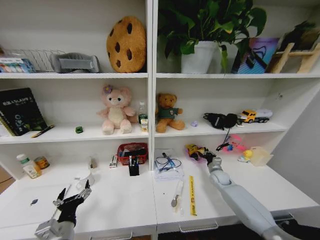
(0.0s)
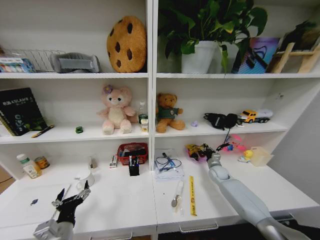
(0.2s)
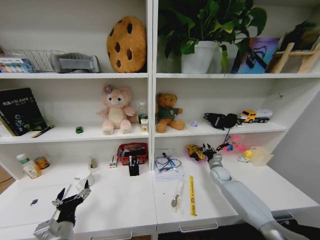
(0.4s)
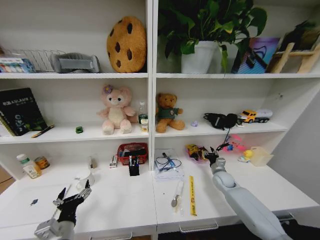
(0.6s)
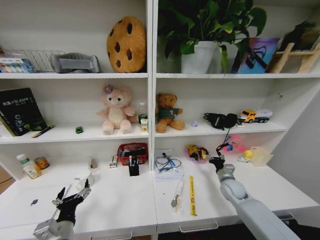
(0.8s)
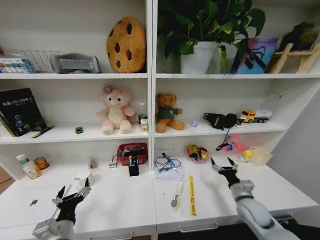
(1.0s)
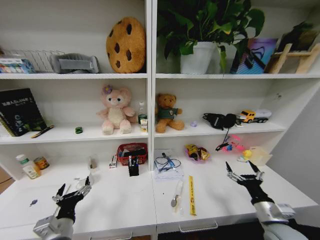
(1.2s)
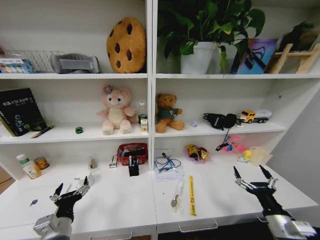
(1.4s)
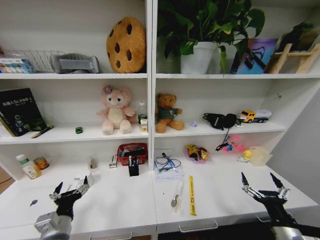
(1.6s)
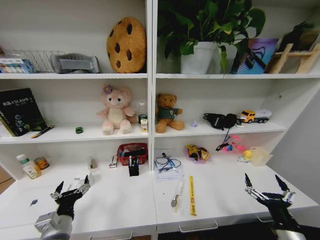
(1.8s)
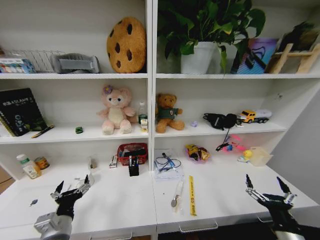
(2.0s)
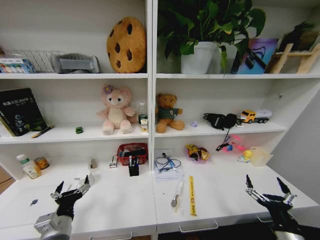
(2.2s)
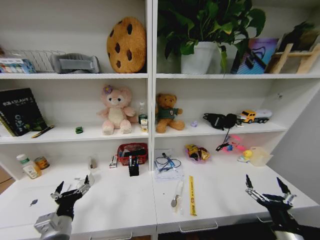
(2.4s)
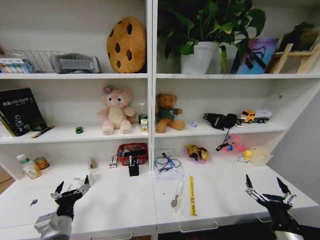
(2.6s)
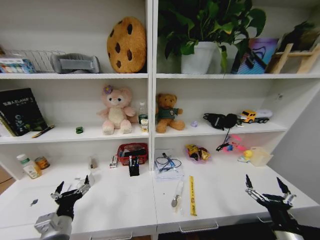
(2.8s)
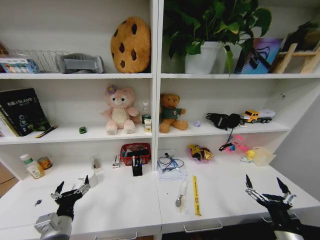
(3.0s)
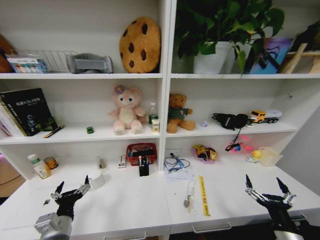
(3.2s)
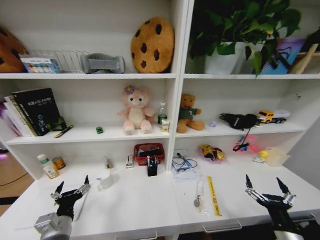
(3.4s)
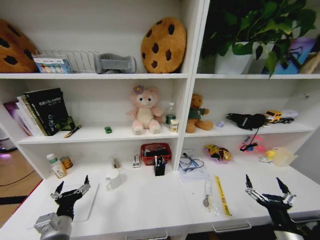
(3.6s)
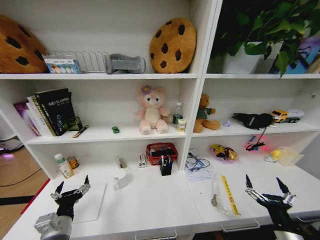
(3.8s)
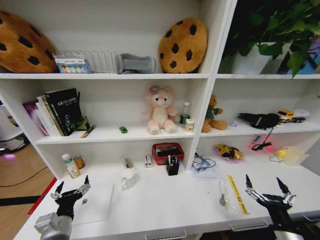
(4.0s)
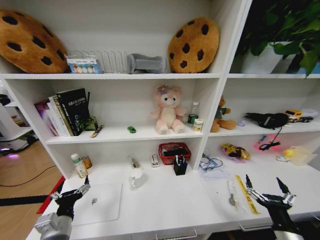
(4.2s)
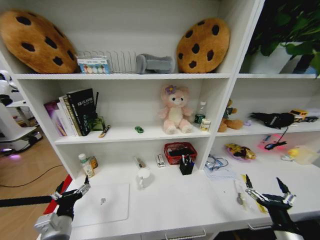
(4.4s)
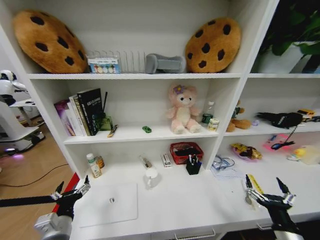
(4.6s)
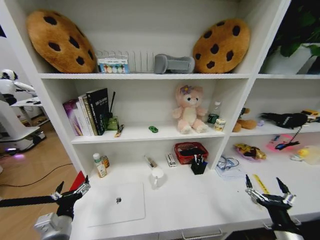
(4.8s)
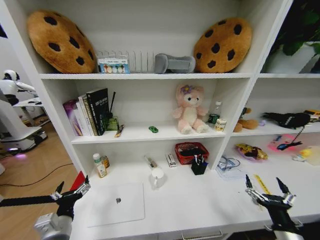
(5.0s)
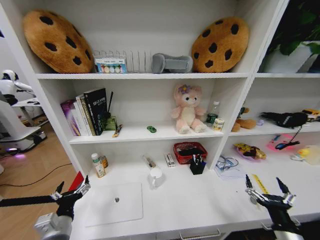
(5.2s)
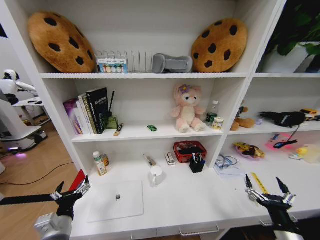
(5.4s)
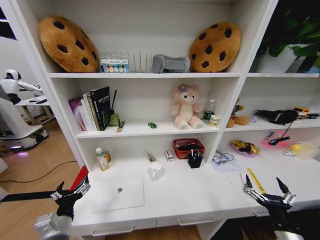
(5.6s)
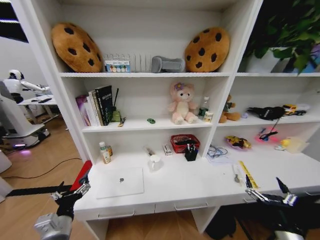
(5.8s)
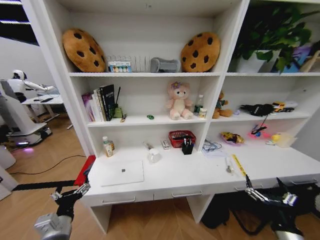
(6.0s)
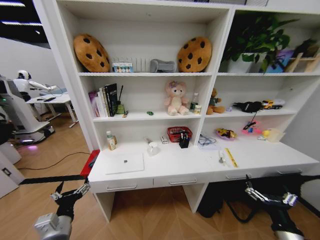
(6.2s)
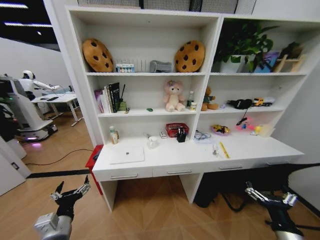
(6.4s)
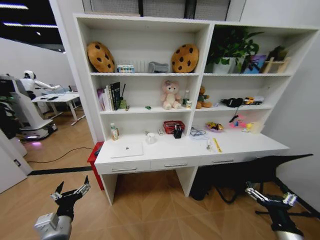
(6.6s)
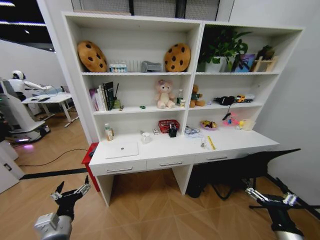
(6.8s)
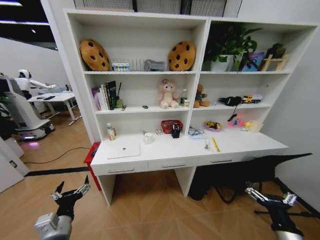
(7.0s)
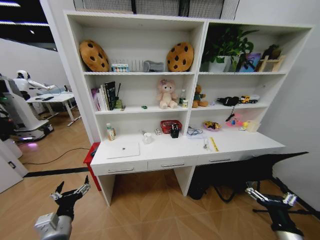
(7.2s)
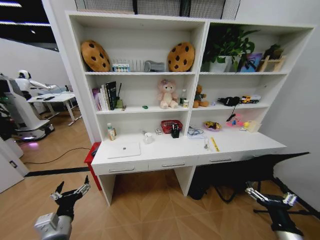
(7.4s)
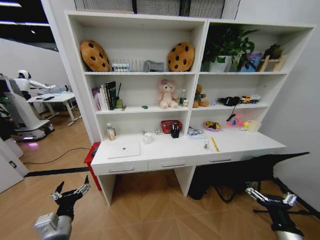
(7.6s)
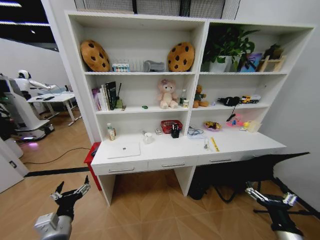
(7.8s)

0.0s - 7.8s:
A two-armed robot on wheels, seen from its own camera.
Task of the whole recording: Organize the objects on the table.
0.0s - 1.6s: The right gripper goes some 35 cm backward, and opens.

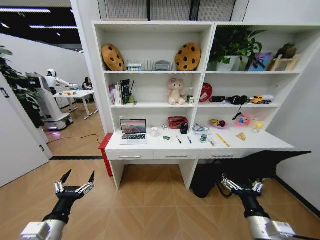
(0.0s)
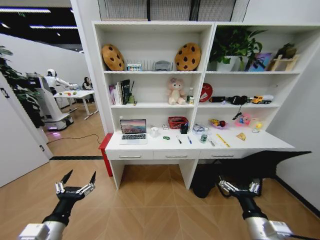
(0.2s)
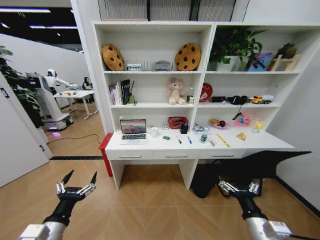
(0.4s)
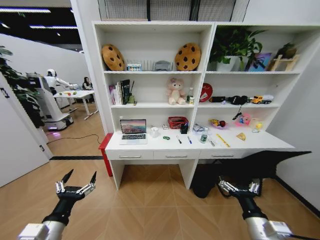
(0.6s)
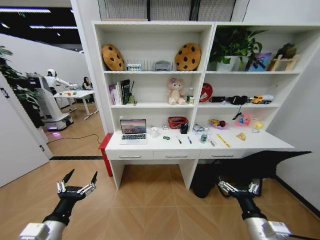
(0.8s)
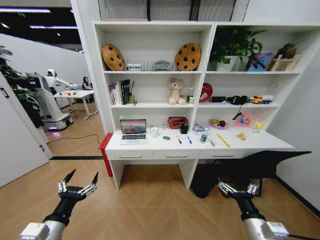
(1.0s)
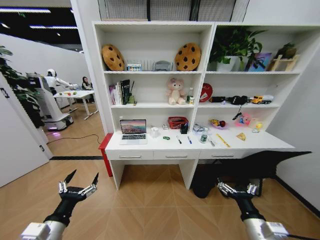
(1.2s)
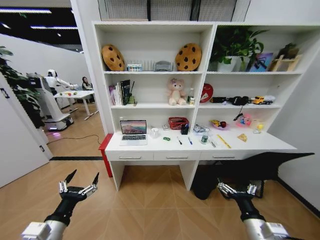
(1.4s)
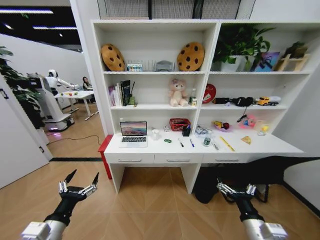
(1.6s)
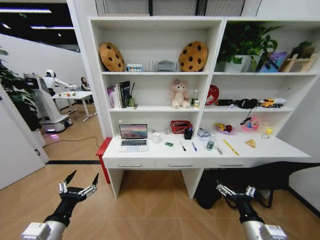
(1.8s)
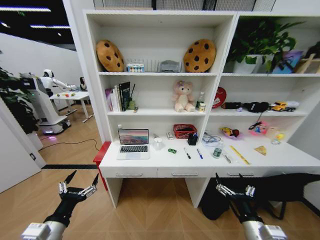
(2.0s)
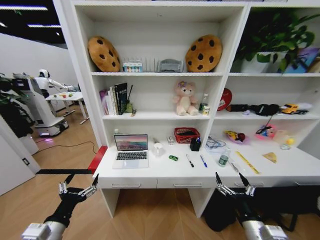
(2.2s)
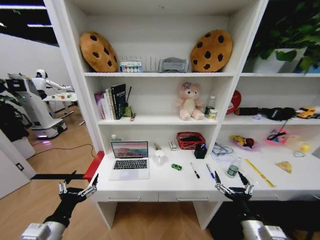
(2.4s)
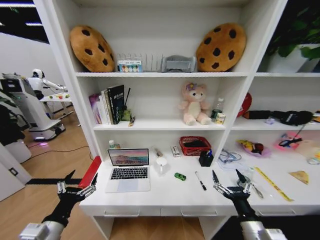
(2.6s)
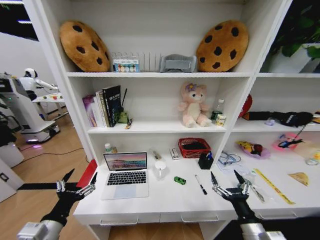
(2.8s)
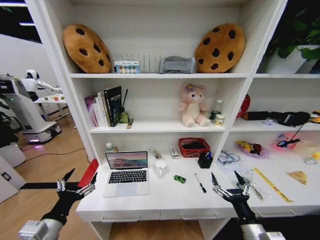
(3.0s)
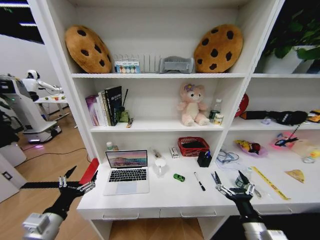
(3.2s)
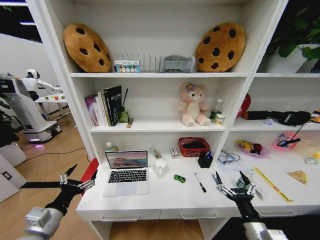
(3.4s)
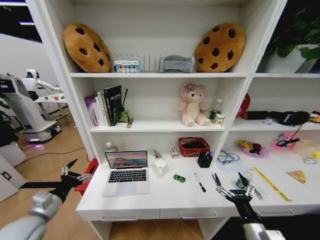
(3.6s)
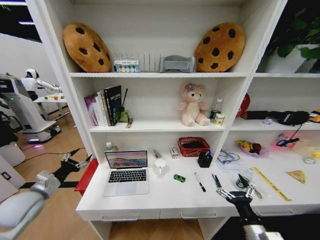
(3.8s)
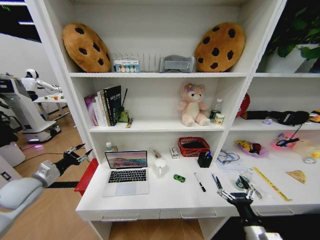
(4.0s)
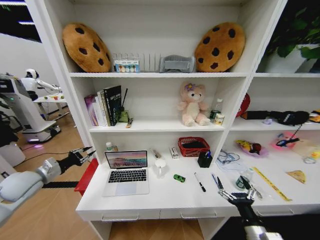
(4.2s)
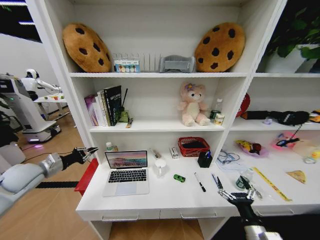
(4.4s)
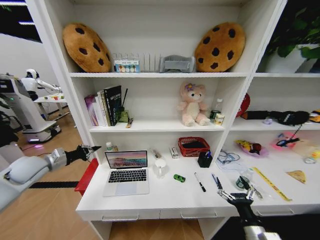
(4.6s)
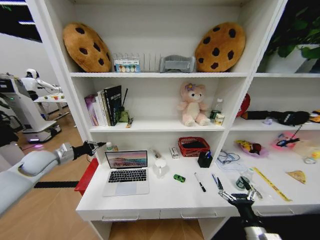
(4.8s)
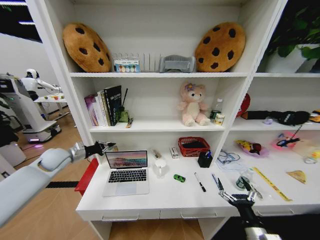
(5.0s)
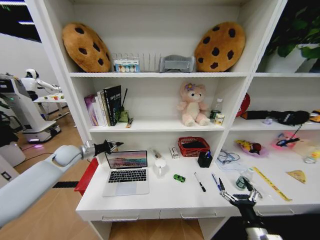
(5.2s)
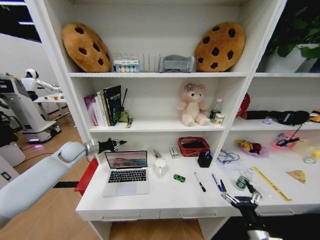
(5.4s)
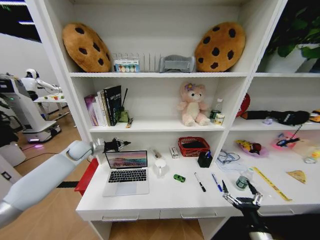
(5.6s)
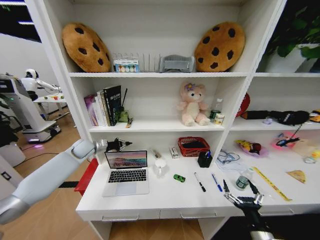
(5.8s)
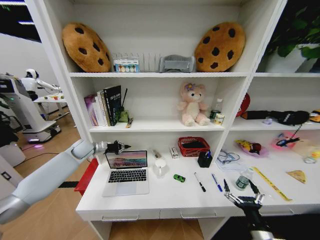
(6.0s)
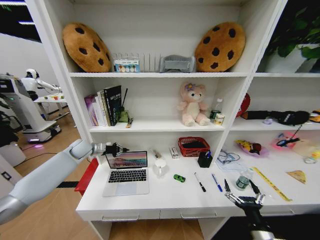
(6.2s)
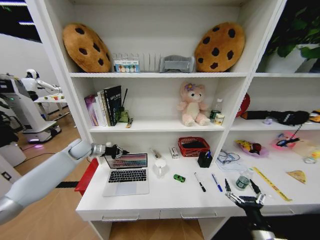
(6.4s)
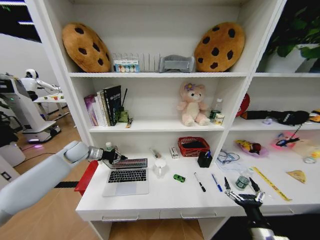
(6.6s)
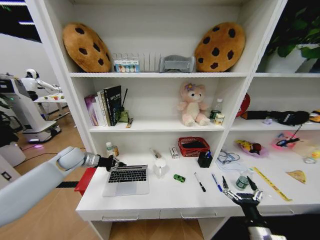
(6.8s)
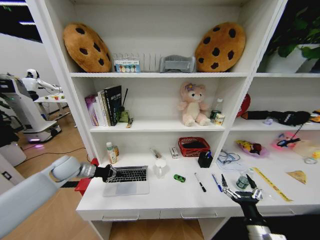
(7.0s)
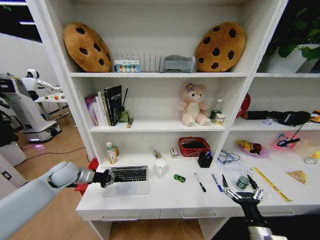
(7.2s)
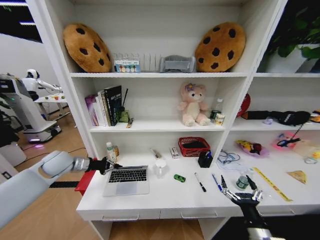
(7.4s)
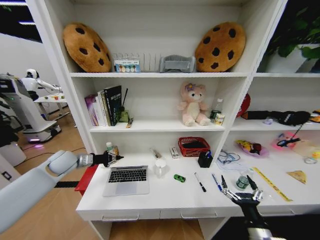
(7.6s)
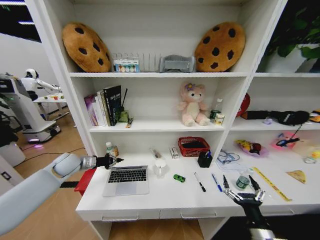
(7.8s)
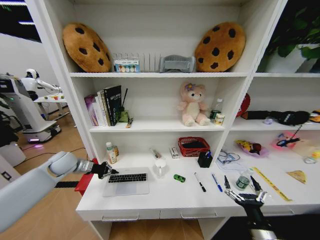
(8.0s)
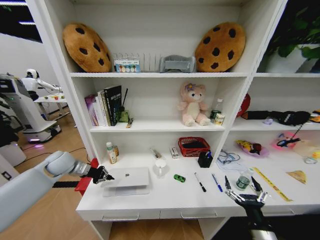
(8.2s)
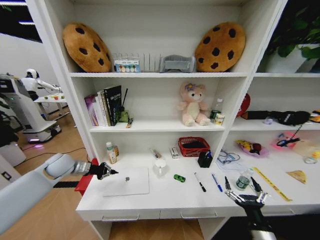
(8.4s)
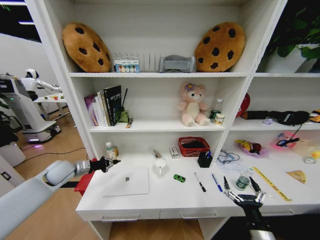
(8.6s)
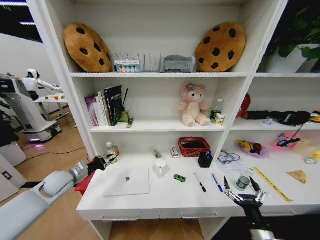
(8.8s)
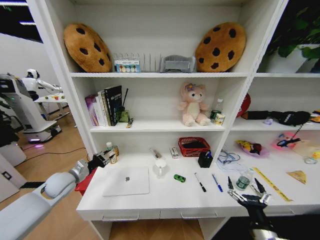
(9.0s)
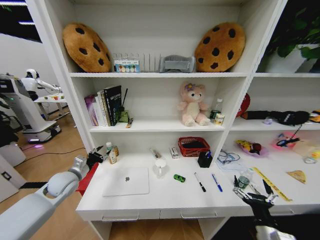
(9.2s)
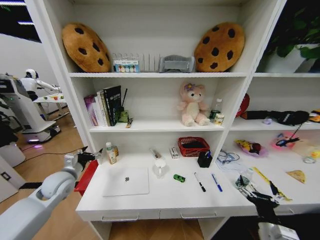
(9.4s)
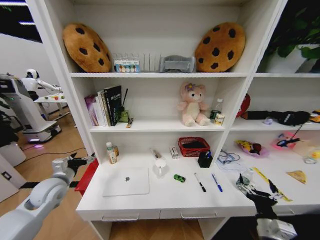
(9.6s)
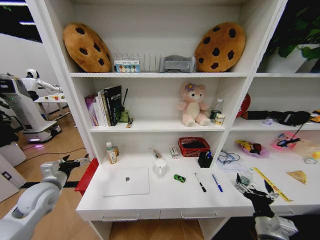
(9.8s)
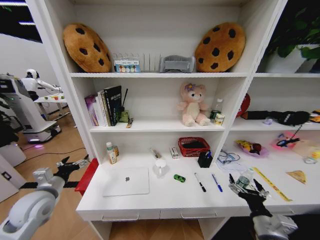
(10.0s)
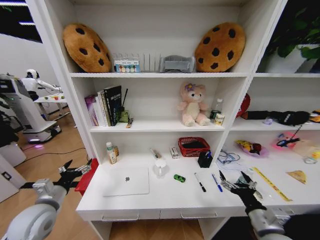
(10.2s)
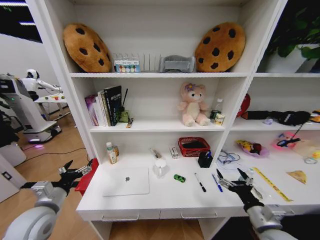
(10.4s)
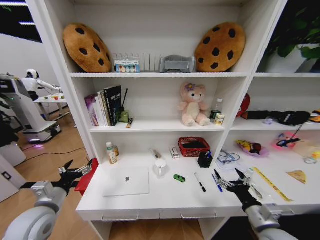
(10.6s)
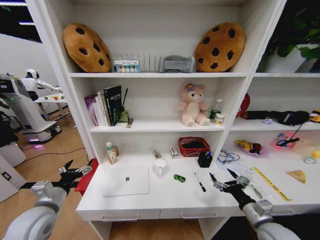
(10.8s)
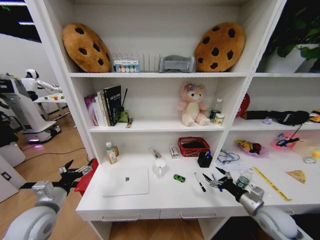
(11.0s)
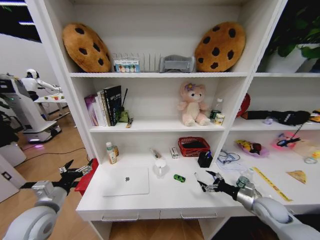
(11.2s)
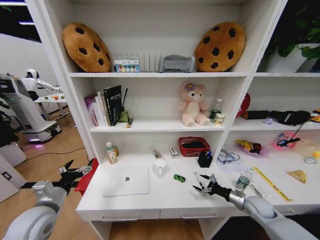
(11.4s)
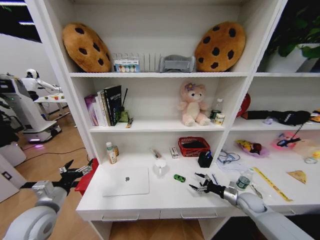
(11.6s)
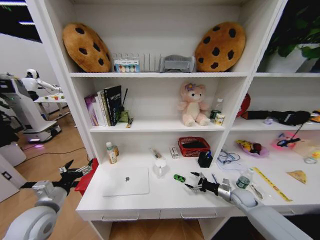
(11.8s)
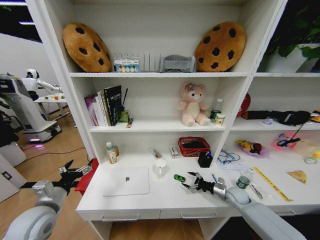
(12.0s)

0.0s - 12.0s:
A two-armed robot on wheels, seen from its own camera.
Task of the whole recording: Organize the objects on the table.
3.0s - 4.4s: The left gripper shifts about 25 cm forward and to the left, and closes.
4.4s - 6.0s: The left gripper is displaced forward and to the right by roughly 20 cm.
6.0s - 7.6s: The left gripper is displaced backward by roughly 10 cm.
7.6s - 9.0s: The left gripper shifts approximately 10 cm backward and downward, and opens its fingers.
9.0s - 10.4s: The left gripper is displaced backward by about 15 cm, and opens, while the right gripper moves upward, roughly 5 cm.
10.4s - 12.0s: The right gripper travels forward and downward by approximately 25 cm.

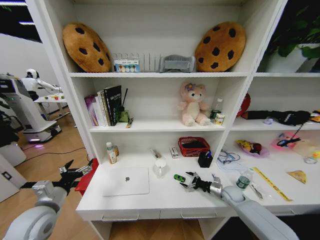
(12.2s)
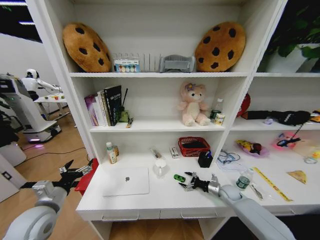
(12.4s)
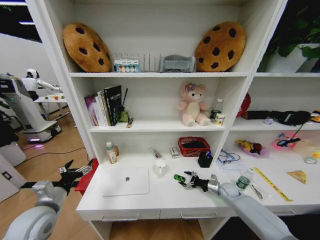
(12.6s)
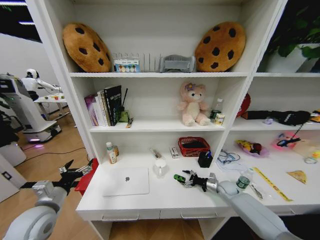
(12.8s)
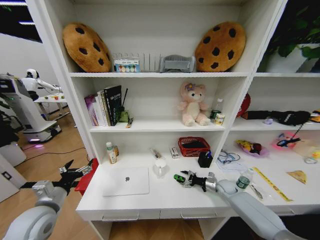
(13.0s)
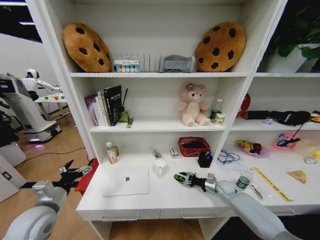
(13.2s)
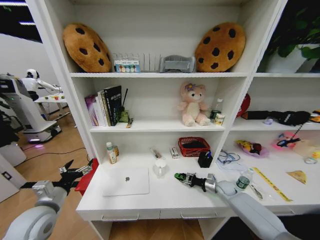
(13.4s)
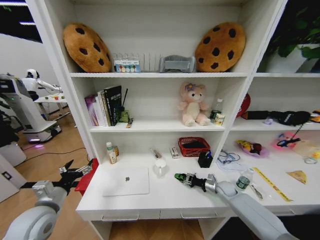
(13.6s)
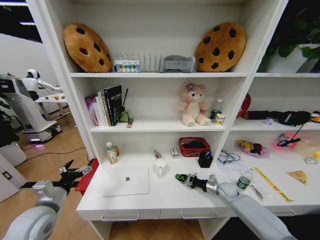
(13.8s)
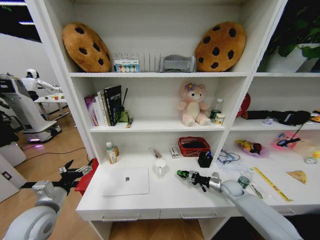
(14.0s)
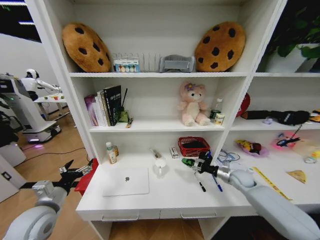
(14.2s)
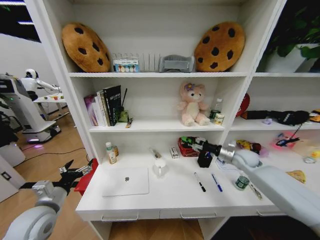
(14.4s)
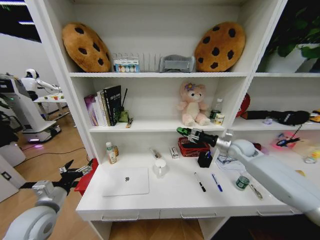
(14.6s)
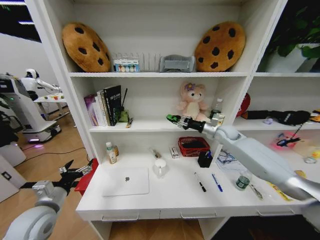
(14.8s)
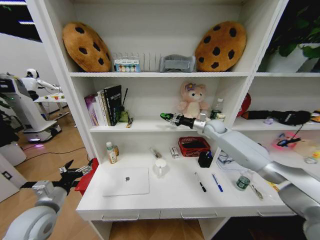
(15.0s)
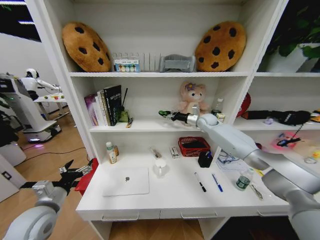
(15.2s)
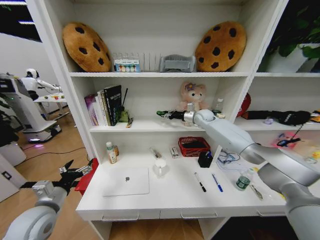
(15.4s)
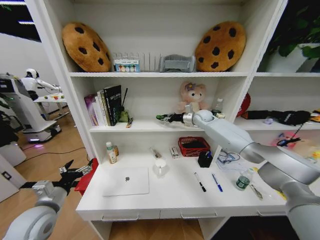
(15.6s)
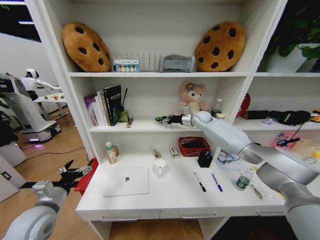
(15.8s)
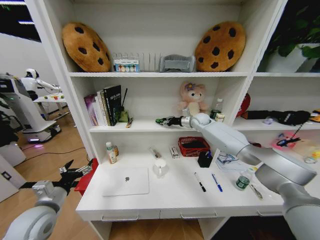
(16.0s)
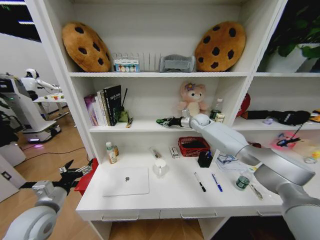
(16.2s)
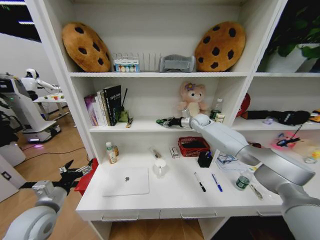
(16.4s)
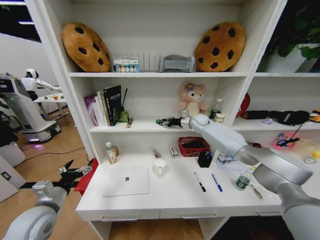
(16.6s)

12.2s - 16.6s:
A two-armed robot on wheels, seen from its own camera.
Task of the whole recording: Organize the objects on the table.
12.2s - 13.6s: The right gripper closes up.
13.6s - 15.2s: The right gripper shifts approximately 40 cm upward and forward.
15.2s - 16.6s: The grippers make only small movements.
